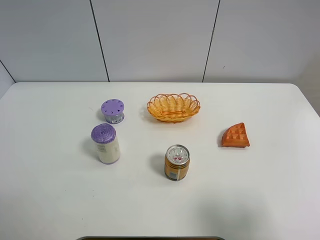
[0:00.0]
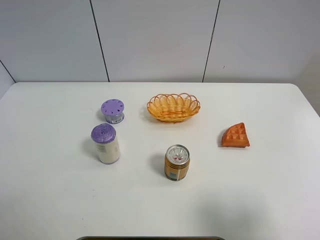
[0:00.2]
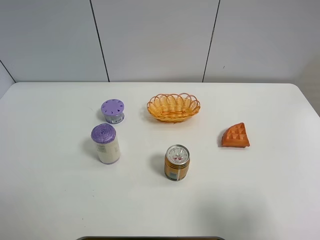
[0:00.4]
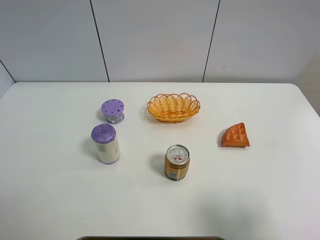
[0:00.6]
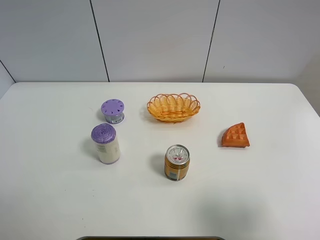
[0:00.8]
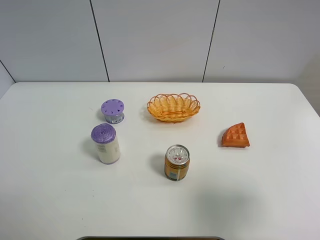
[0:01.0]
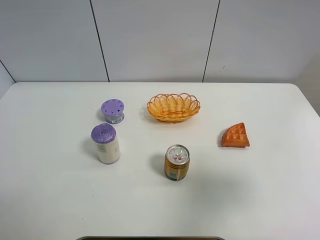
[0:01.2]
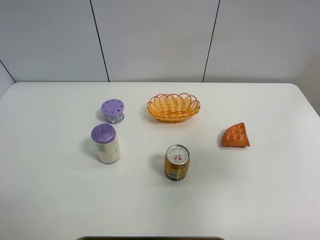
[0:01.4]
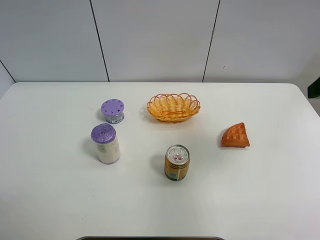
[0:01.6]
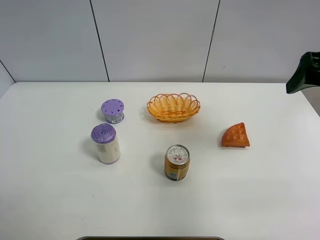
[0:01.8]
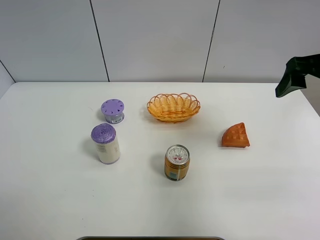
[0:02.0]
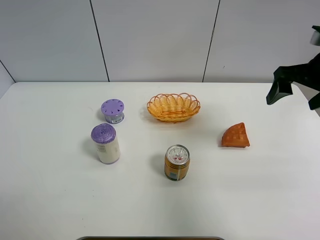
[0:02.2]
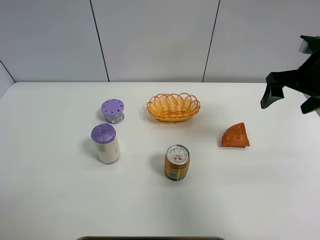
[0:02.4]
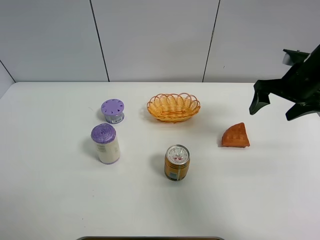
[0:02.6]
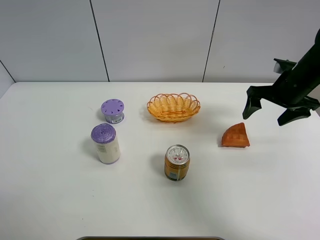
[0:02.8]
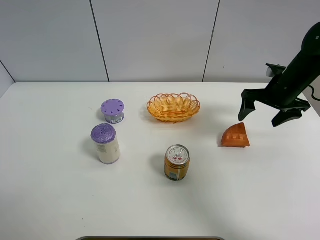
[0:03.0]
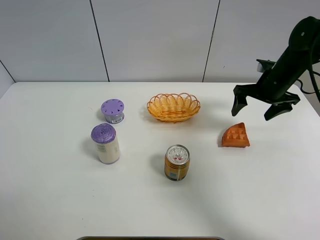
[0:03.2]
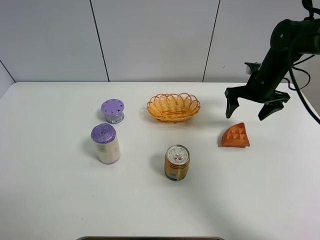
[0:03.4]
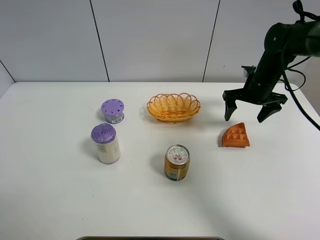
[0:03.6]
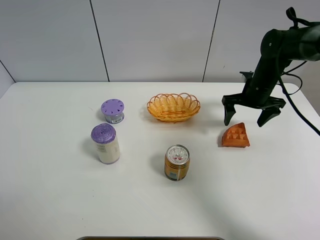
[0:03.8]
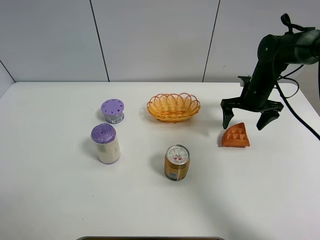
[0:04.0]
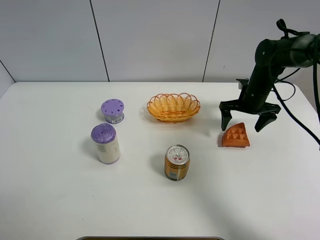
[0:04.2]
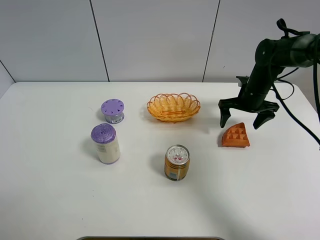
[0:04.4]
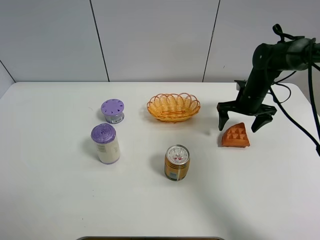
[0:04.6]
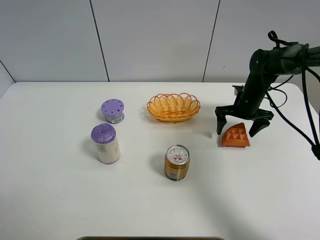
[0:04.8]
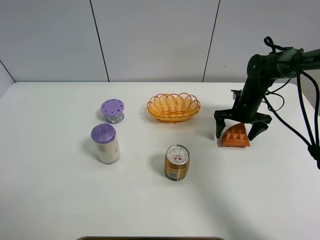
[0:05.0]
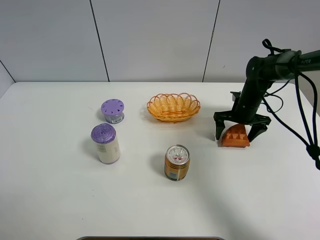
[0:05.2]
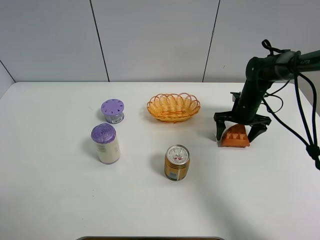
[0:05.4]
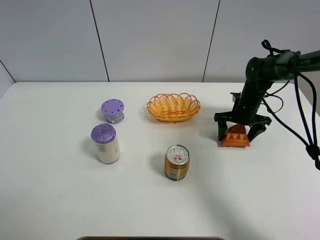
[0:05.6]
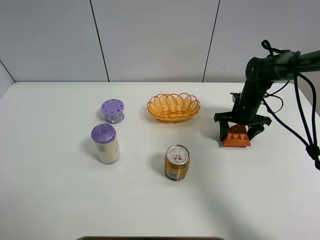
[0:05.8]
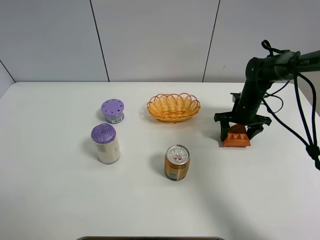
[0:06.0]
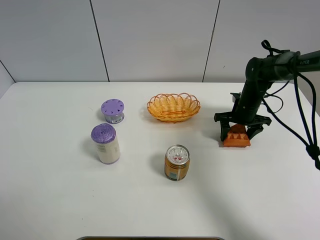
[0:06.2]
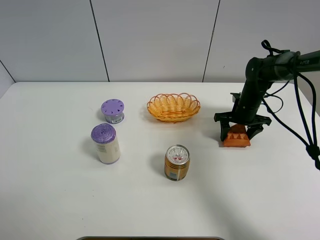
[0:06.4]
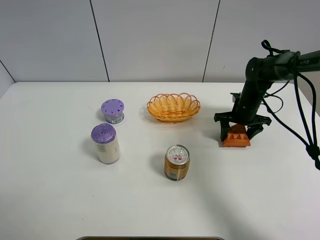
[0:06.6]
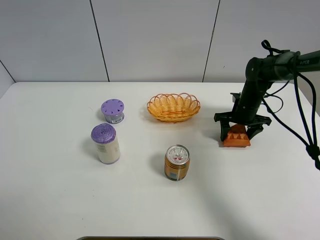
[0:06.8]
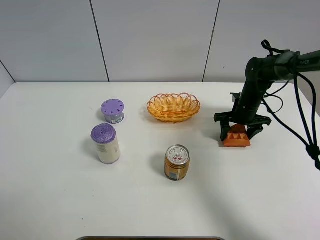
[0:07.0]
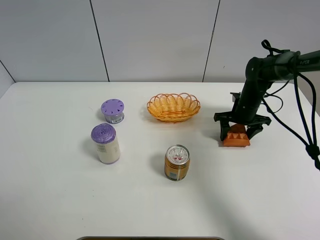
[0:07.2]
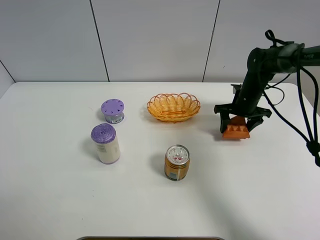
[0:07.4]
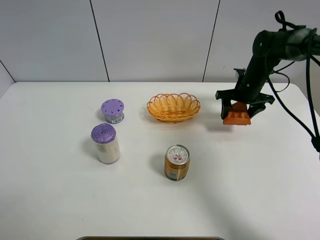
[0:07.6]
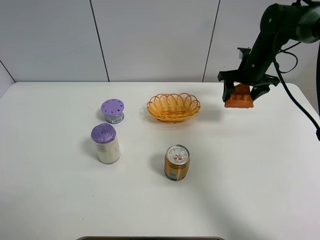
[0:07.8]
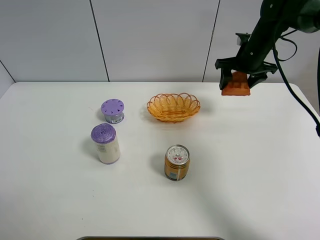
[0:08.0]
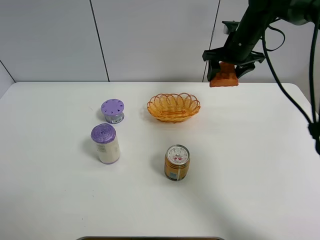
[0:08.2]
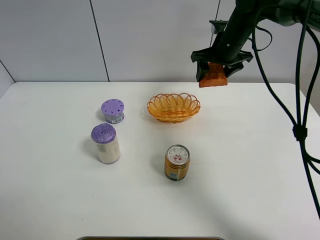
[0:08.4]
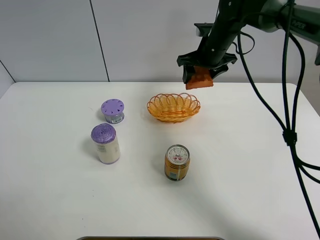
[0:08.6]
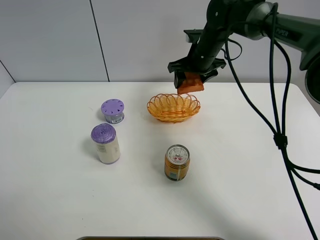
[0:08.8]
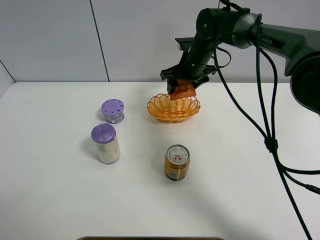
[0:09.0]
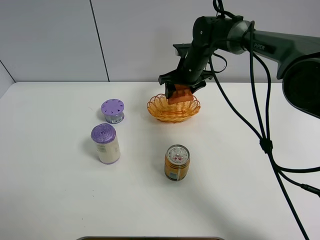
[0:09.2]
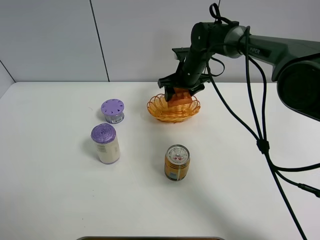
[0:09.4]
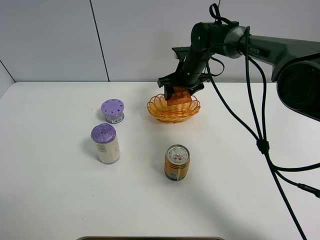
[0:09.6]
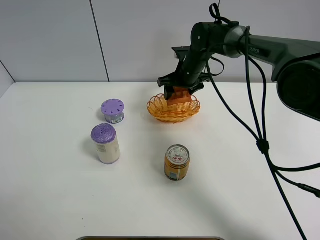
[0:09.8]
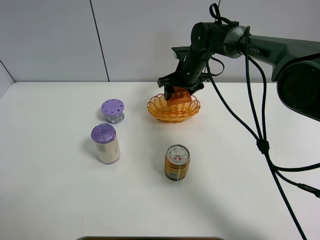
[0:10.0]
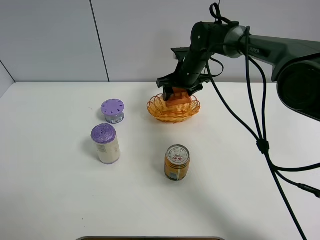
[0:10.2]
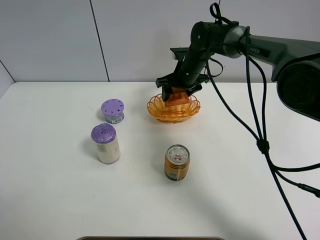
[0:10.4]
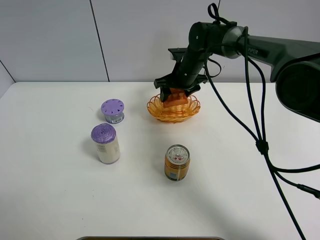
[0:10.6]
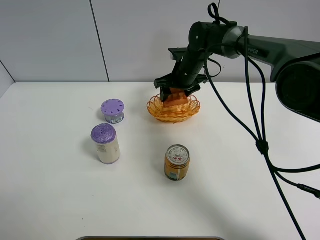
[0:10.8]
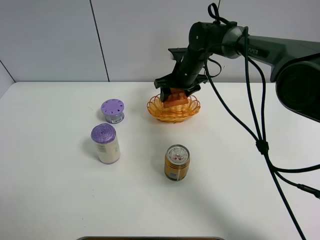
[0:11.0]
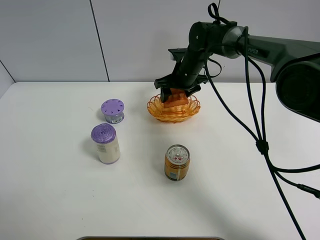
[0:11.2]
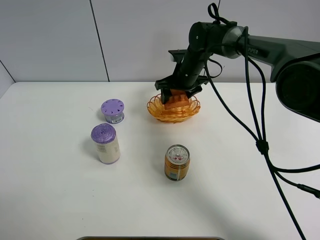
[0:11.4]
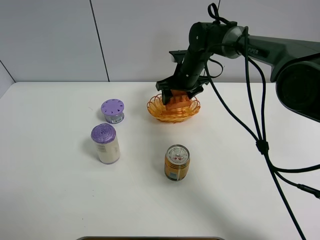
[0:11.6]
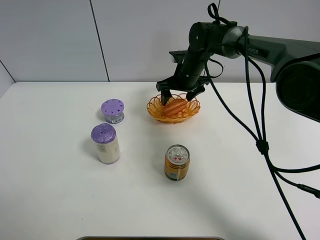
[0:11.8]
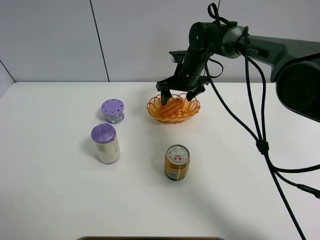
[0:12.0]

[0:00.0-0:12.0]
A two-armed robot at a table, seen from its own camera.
Task of the whole recording: Put the bakery in the basket.
Step, 0:00.0 to 0:06.0: Grasp the bread with right gripper.
0:00.0 to 0:01.6: The right gripper goes roughly 20 cm forward and upward.
0:01.6 to 0:03.0: The right gripper travels forward and downward by roughly 25 cm.
0:03.0 to 0:04.4: The right gripper shifts approximately 5 cm downward.
0:04.4 to 0:06.0: The right gripper goes about 5 cm downward, and closes up.
0:06.0 to 0:07.6: The right gripper heads upward, covering some 5 cm.
0:07.6 to 0:09.0: The right gripper shifts about 15 cm to the left.
0:09.0 to 0:10.4: The grippers make only small movements.
0:10.4 to 0:12.0: The right gripper opens its fingers.

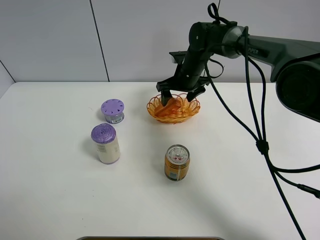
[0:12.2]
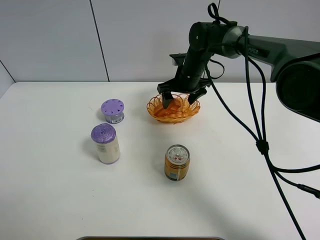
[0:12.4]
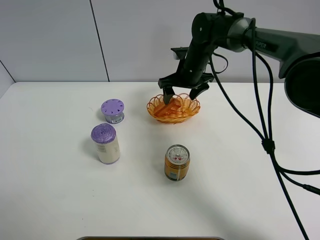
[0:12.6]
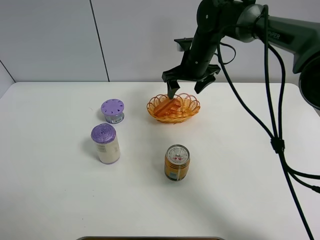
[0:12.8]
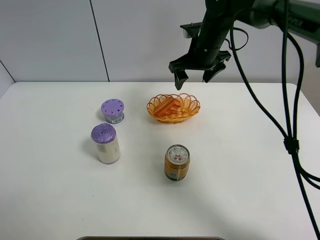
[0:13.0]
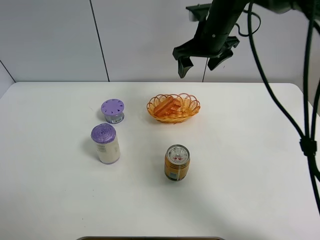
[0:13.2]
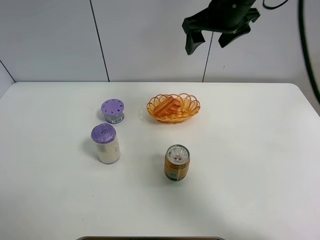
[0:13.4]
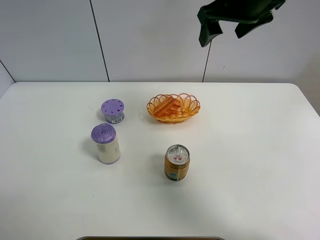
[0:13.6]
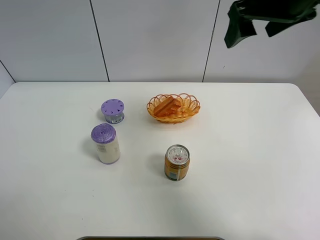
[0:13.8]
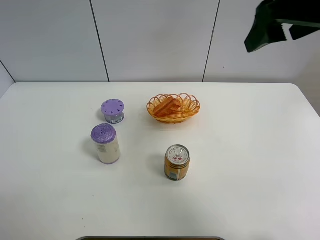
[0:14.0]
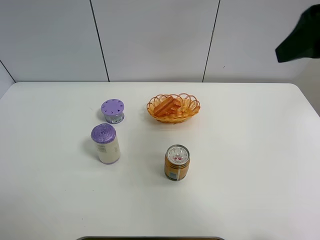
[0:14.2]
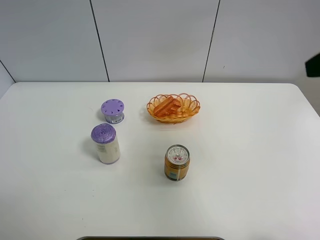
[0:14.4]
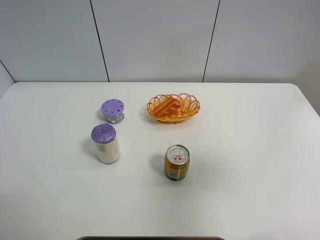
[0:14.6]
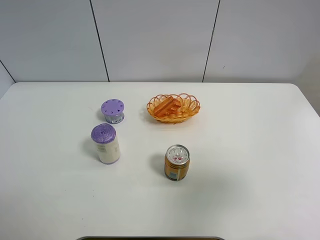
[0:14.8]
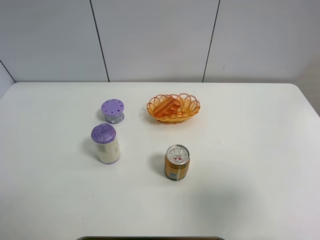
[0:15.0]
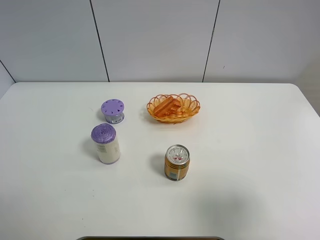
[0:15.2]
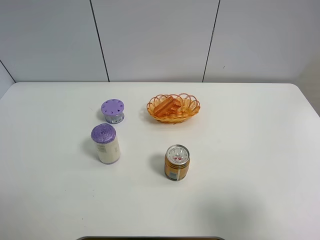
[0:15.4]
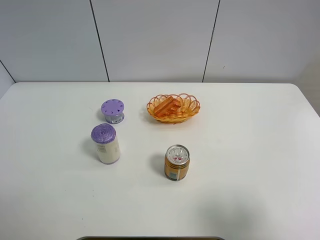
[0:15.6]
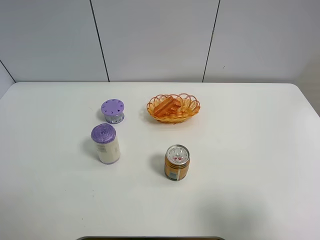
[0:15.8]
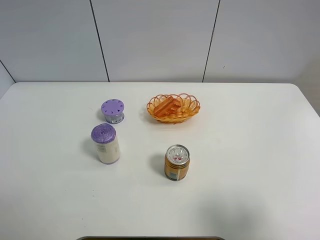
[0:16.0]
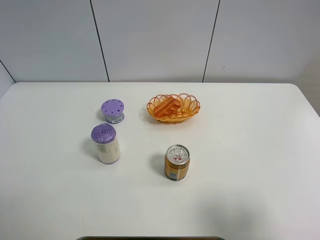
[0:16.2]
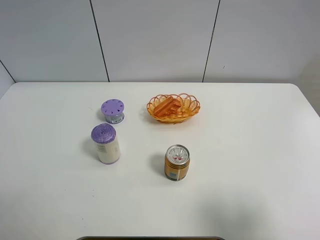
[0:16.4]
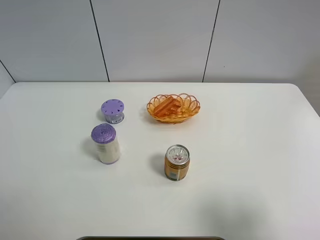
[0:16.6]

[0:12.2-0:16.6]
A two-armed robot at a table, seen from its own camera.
Task of the whole recording: Put the bakery in the basket.
0:12.2 to 0:13.6: The right gripper travels upward and backward by approximately 25 cm.
0:13.6 to 0:15.2: The right gripper travels backward and to the right by about 35 cm.
